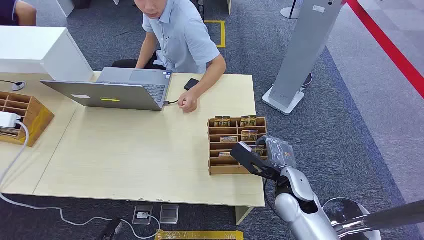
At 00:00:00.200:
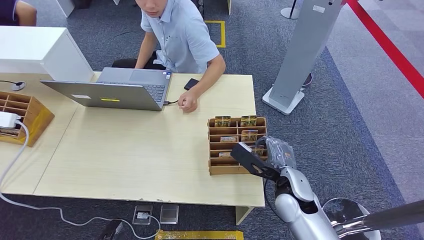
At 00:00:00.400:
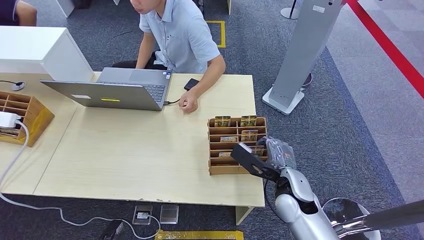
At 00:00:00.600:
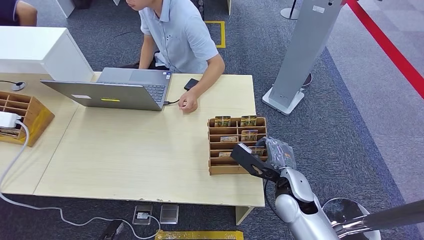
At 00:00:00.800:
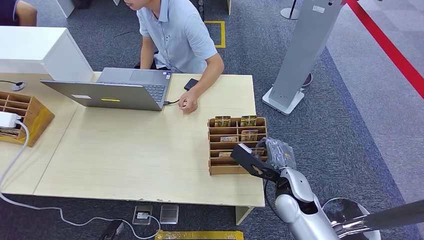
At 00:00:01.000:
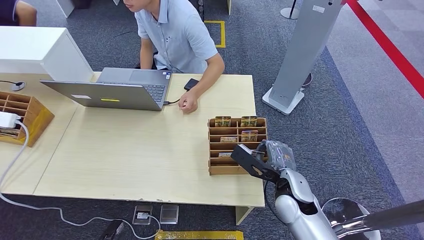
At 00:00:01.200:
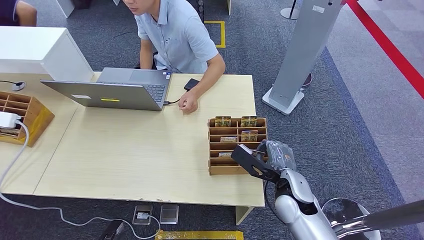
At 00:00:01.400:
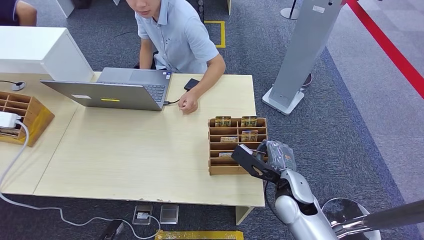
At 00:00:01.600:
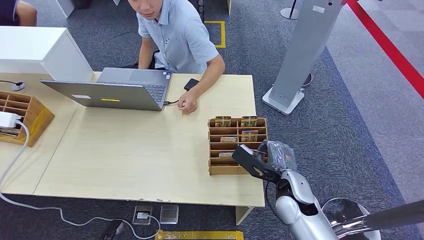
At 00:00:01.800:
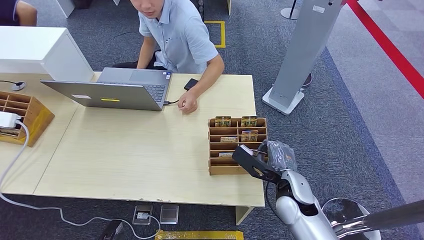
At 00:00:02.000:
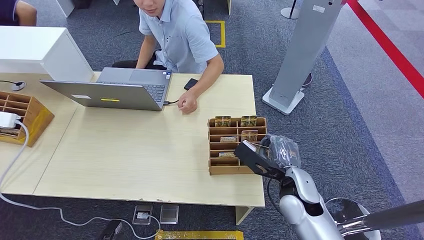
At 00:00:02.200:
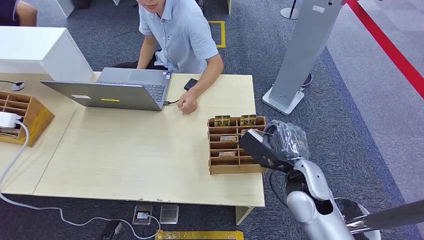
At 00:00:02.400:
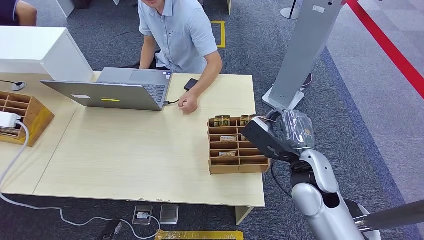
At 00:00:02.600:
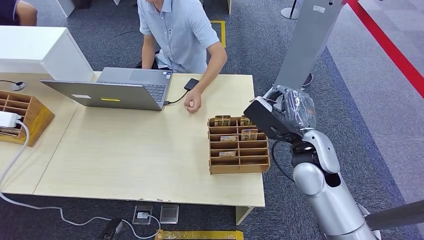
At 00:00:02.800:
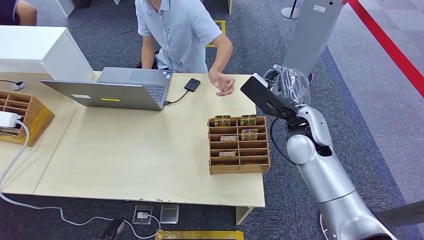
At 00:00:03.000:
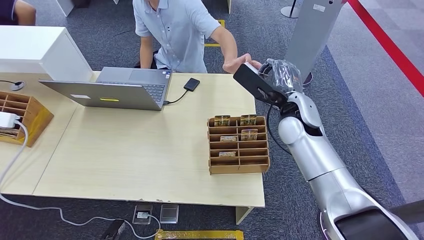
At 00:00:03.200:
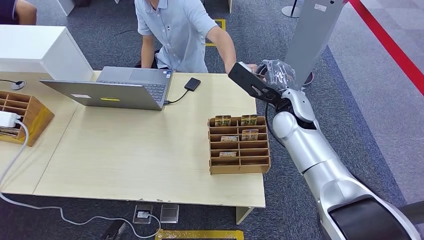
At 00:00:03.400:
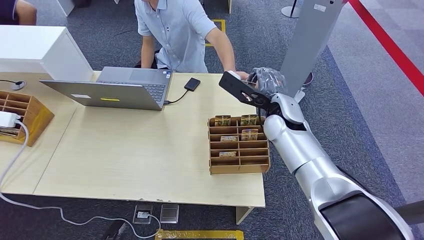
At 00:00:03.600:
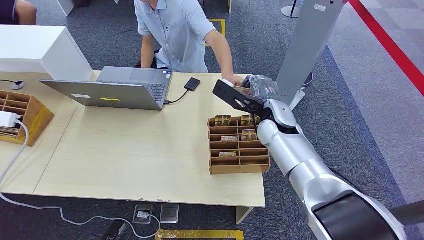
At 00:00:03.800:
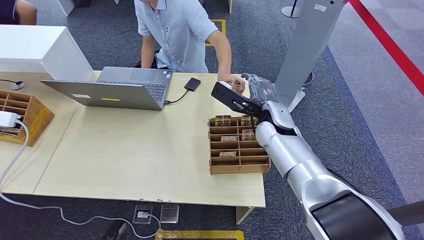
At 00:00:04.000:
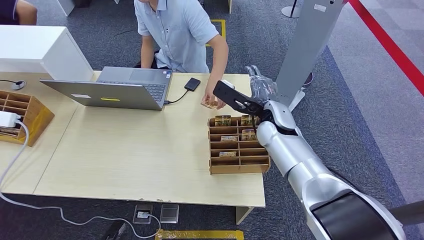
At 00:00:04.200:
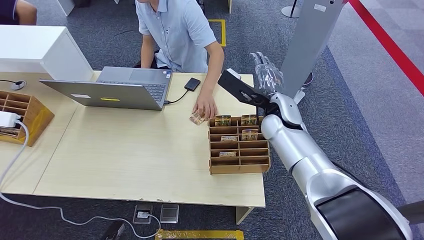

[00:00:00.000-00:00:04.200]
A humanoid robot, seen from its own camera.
Step, 00:00:00.000 to 00:00:02.200: Pick up the room card from the card holder.
Step, 00:00:03.200 to 00:00:04.200: Hand the room card to the target.
00:00:01.400 to 00:00:02.800: The right hand goes approximately 15 cm upward and forward.
00:00:02.800 to 00:00:04.200: The right hand moves forward, about 5 cm.
